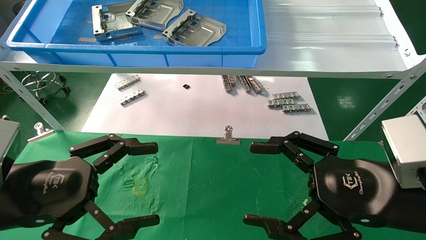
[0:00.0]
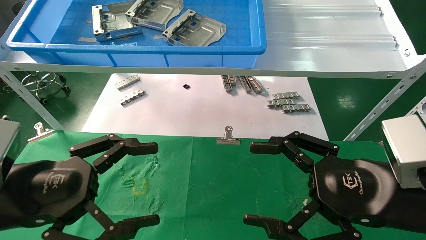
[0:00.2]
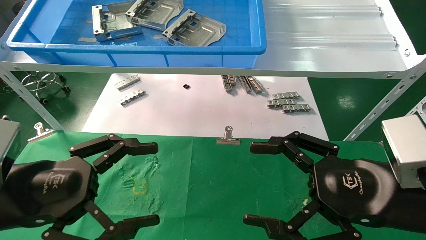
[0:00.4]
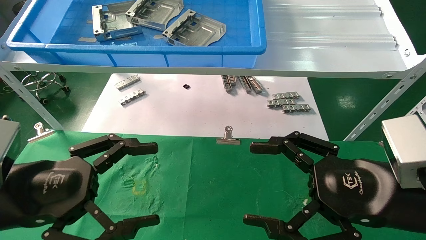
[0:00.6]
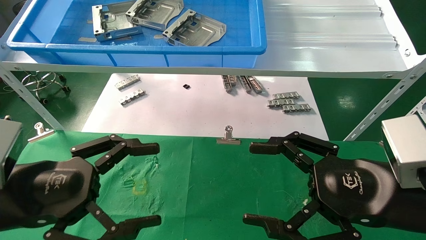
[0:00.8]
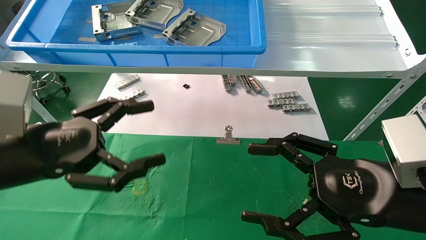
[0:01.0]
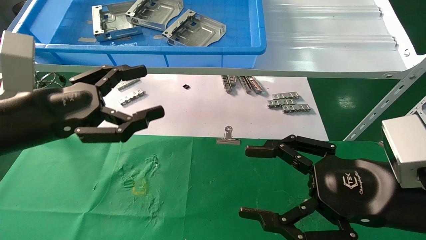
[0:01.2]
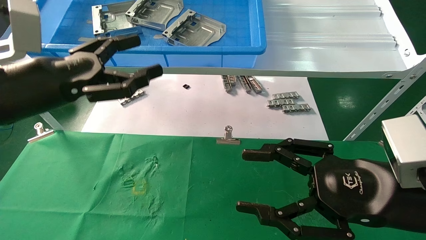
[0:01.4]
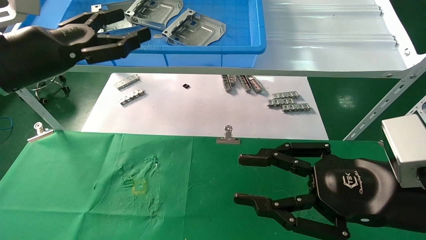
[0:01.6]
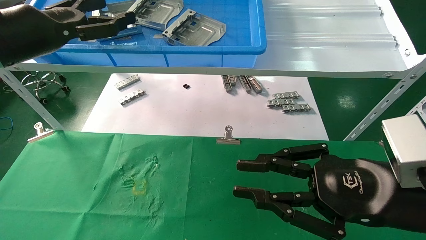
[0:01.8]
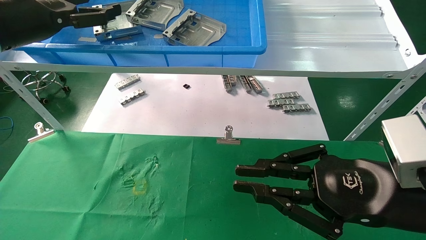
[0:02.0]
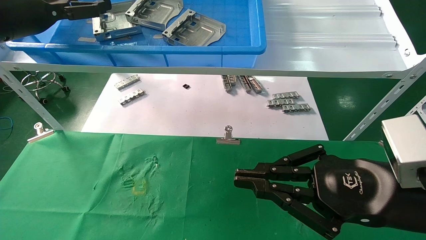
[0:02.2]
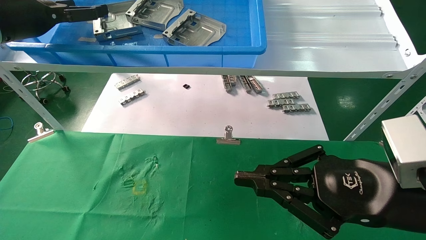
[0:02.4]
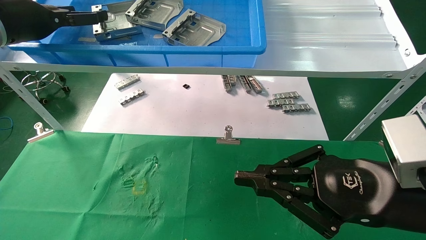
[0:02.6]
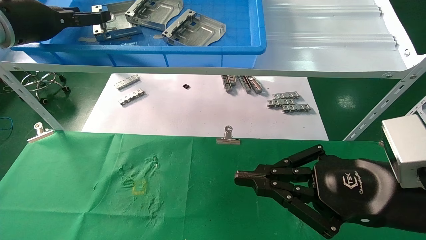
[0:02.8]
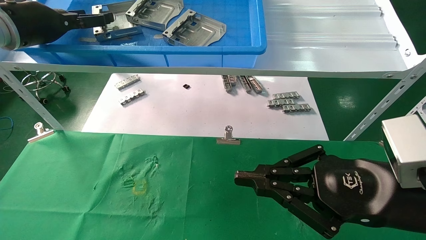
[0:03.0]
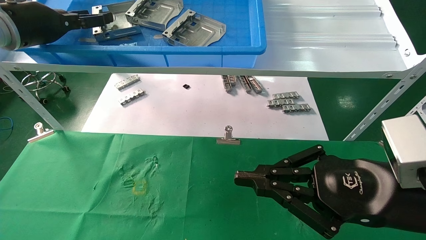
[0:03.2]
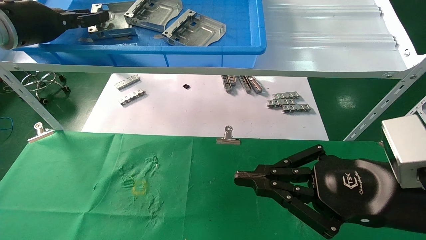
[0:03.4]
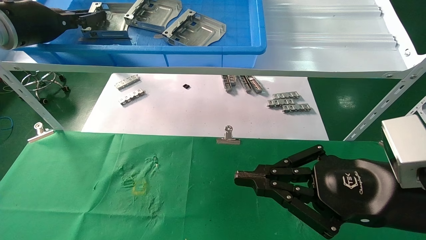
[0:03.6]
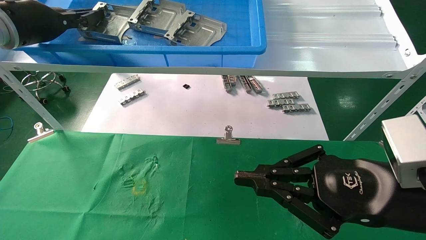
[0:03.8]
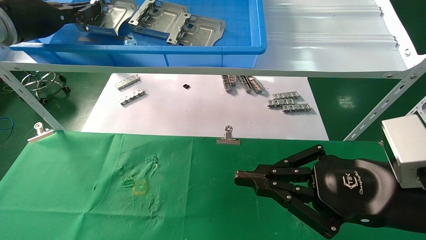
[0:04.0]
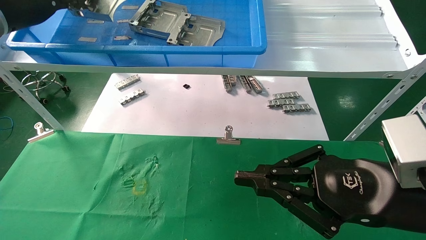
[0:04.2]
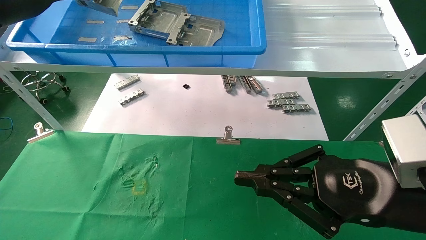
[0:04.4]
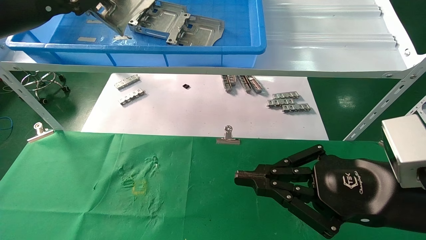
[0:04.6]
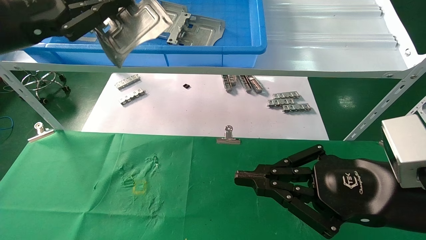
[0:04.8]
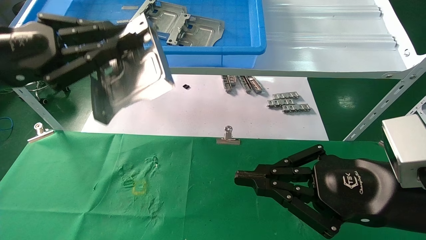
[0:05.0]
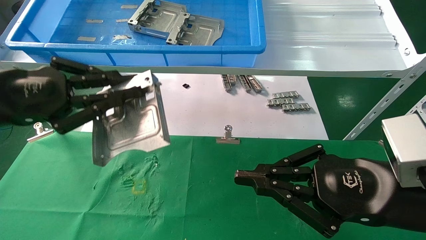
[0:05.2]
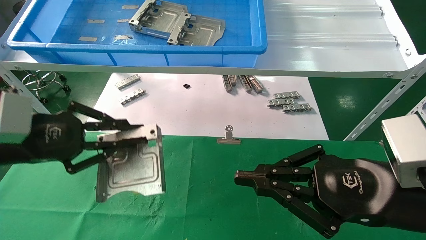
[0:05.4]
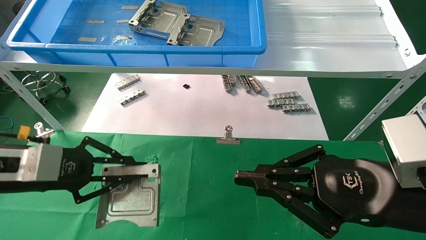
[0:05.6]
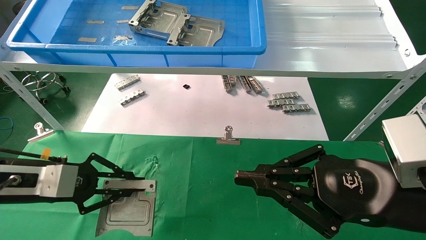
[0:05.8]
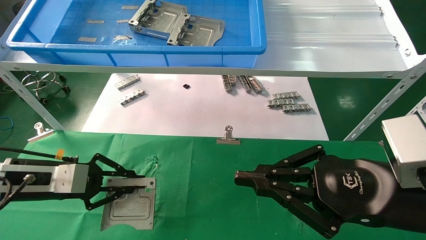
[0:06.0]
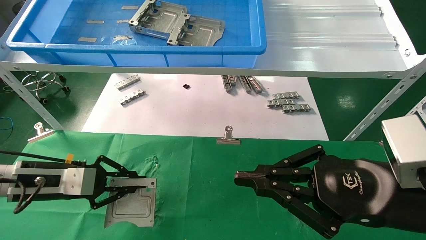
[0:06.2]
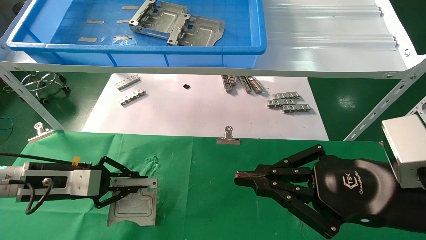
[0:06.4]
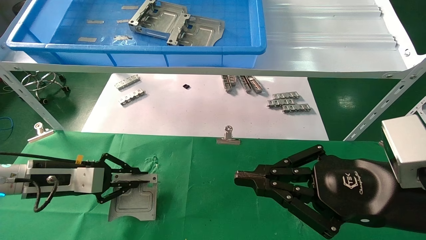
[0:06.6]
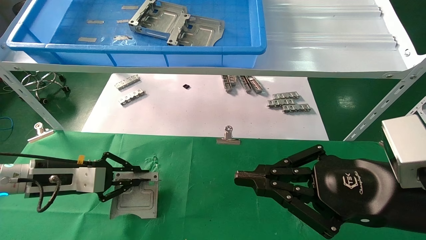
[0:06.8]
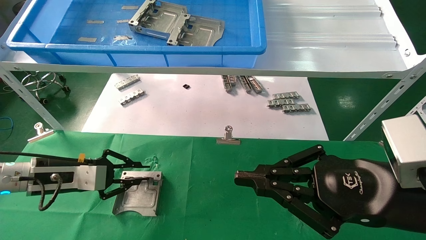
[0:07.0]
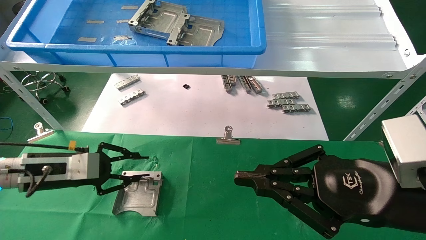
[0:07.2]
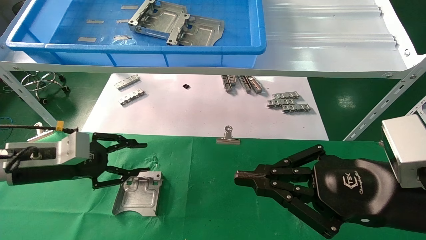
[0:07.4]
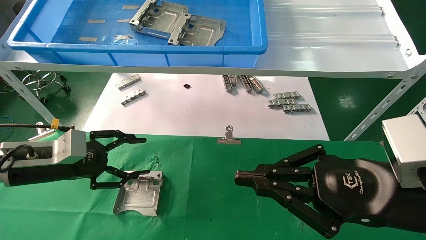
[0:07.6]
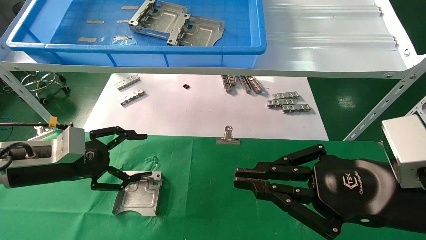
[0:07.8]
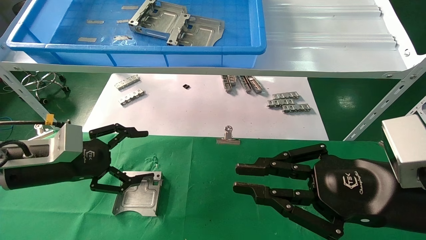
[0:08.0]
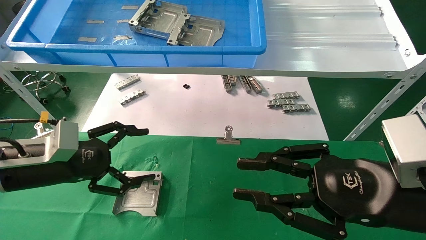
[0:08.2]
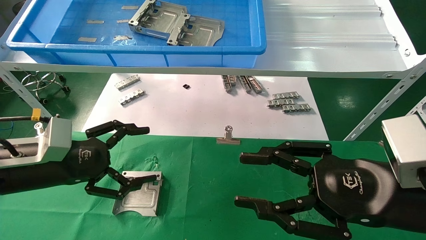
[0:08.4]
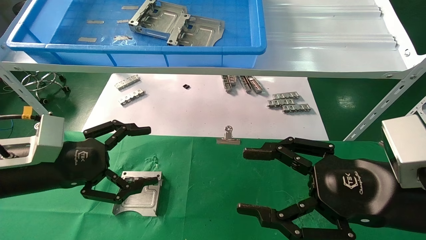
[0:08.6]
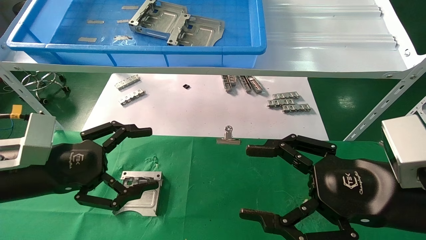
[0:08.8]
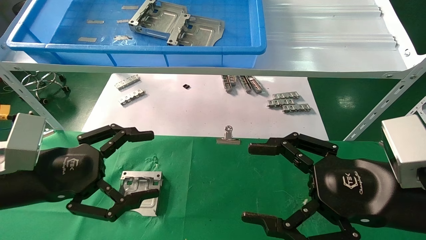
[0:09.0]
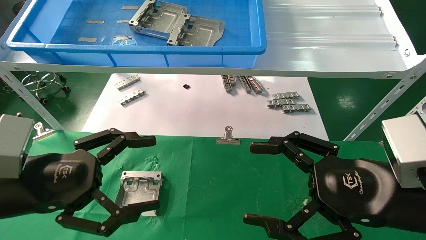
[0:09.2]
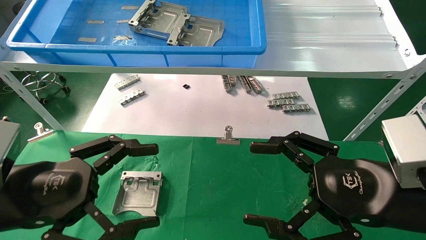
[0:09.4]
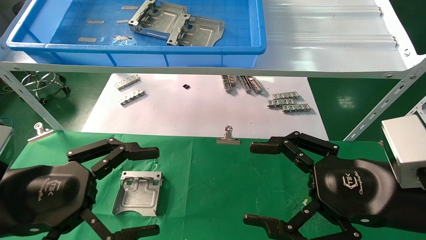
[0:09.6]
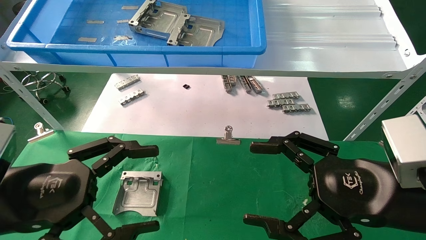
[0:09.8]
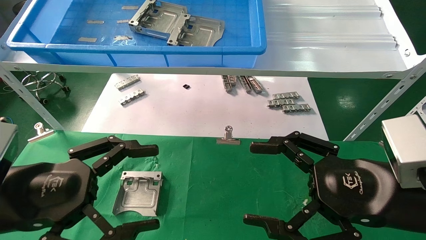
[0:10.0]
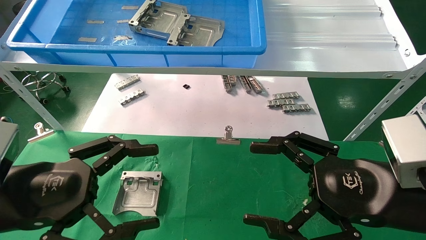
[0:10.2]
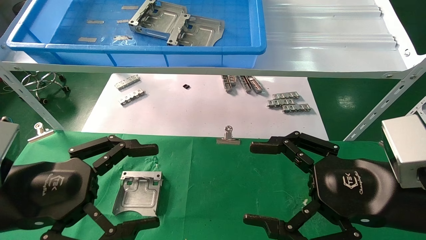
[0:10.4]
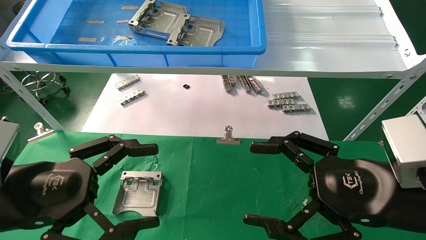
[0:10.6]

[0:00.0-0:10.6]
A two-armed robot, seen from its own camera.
Task of the whole recording: use the mechanical arm to pick up the parts and place them on the table.
Step, 0:01.2 to 0:03.8: Pick up the hard drive bracket from the feeding area.
Step, 0:04.0 to 0:07.0: Place the hard drive bracket into the box.
0:00.0 to 0:01.6: The right gripper closes up; the left gripper travels upward and forward by about 20 cm.
0:01.6 to 0:03.0: The right gripper closes its fingers; the left gripper travels forward and upward by roughly 10 cm.
0:03.0 to 0:04.6: The left gripper travels backward by about 10 cm, and closes up.
0:04.6 to 0:06.0: The left gripper is displaced downward by about 25 cm.
0:06.0 to 0:07.6: The left gripper opens up.
0:07.6 to 0:09.0: The right gripper opens up. Meanwhile the left gripper goes some 10 cm backward, and opens up.
0:09.0 to 0:10.6: The grippers stay close to where they were, moving slightly.
